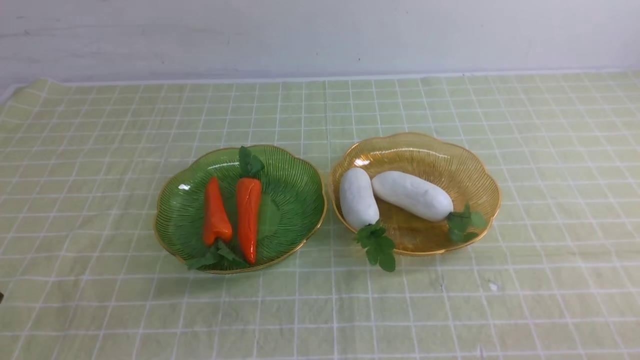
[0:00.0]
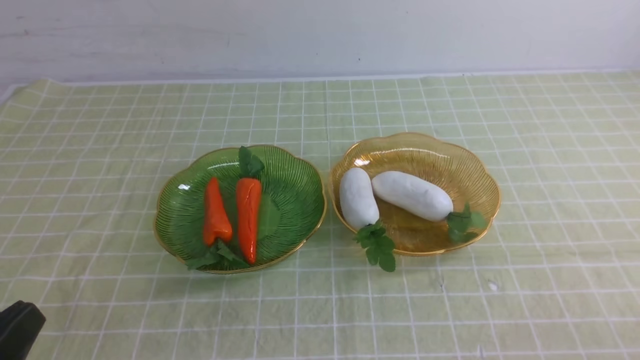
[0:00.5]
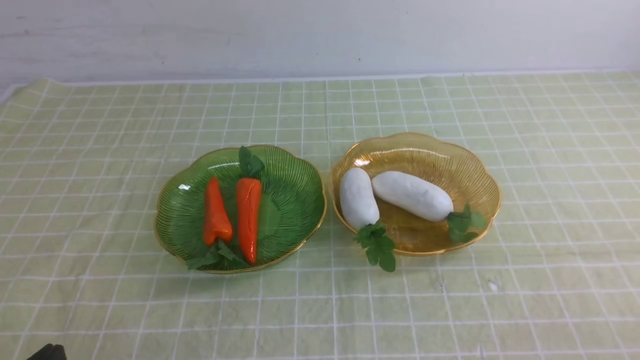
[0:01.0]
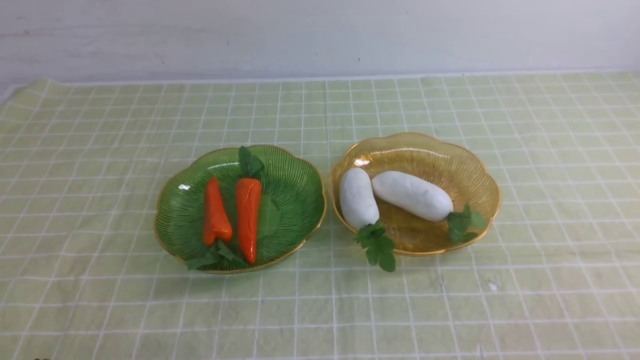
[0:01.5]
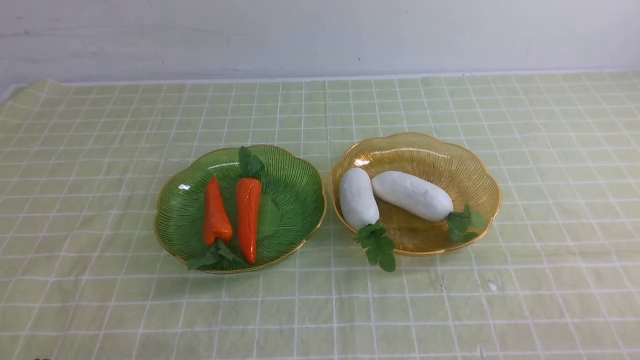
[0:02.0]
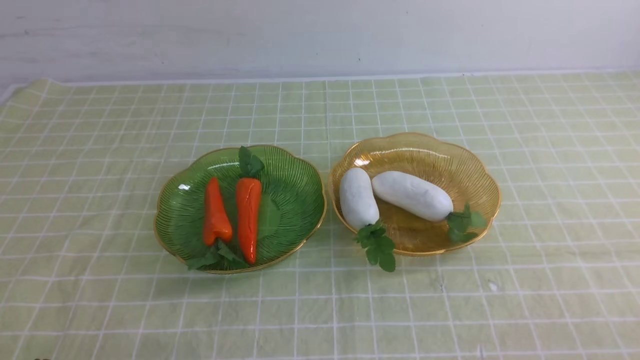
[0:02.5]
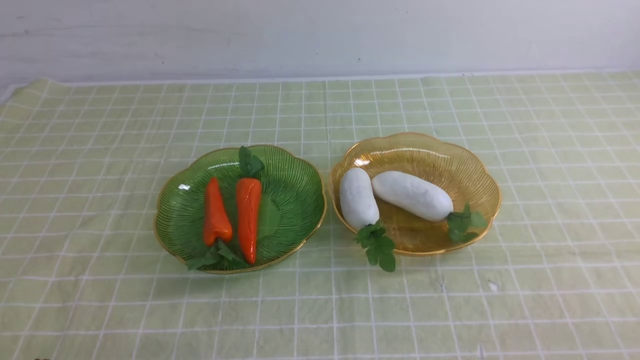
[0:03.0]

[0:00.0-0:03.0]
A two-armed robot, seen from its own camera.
0:01.5 to 0:03.0: Both grippers stay put.
